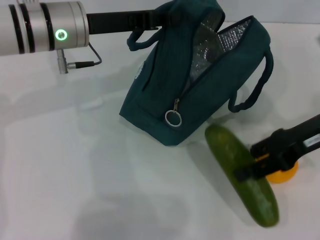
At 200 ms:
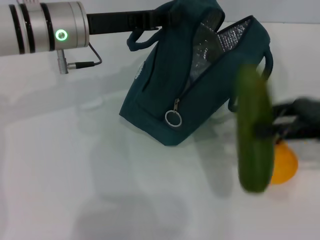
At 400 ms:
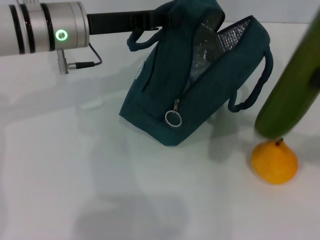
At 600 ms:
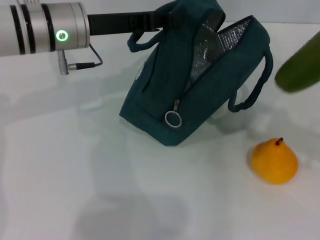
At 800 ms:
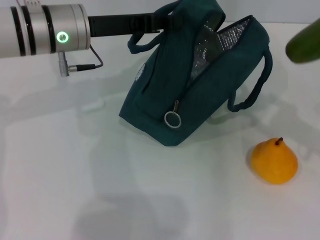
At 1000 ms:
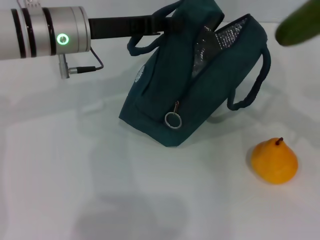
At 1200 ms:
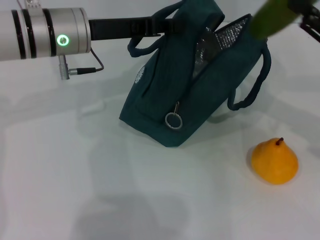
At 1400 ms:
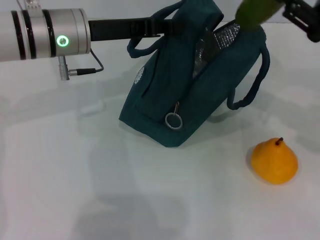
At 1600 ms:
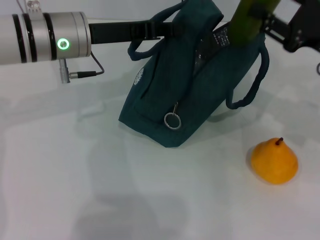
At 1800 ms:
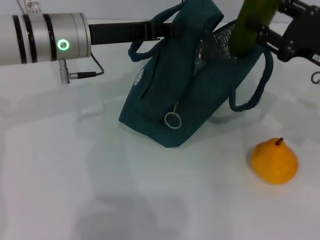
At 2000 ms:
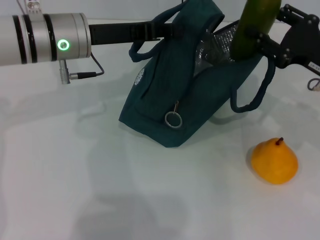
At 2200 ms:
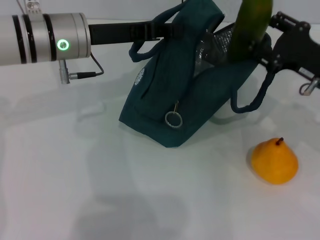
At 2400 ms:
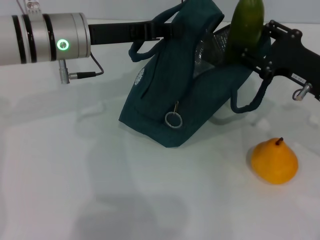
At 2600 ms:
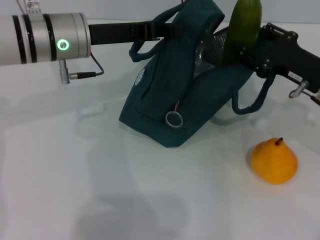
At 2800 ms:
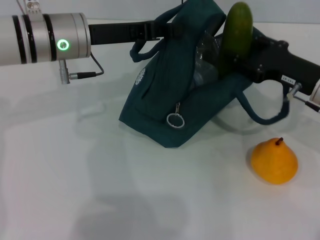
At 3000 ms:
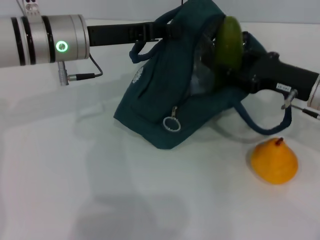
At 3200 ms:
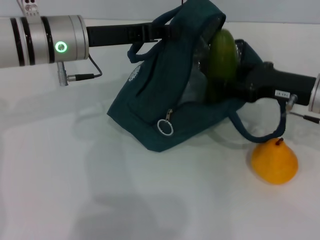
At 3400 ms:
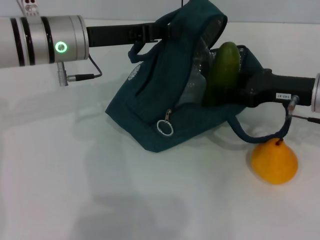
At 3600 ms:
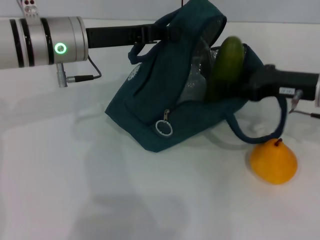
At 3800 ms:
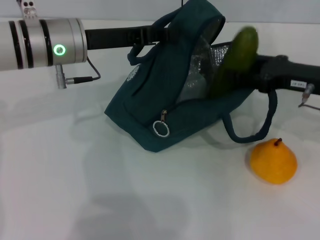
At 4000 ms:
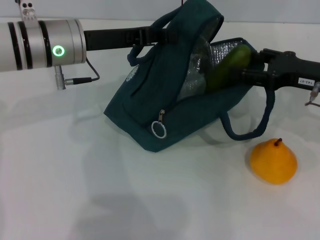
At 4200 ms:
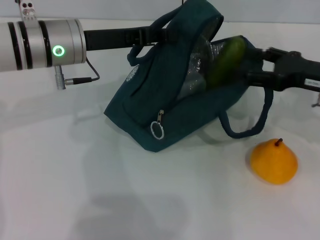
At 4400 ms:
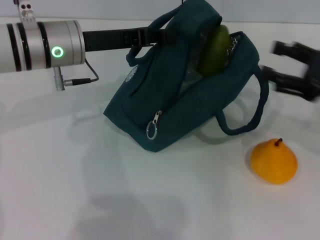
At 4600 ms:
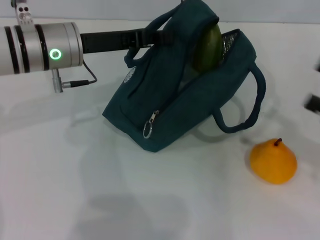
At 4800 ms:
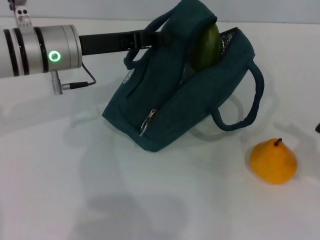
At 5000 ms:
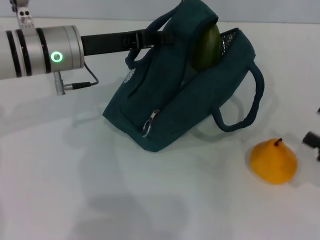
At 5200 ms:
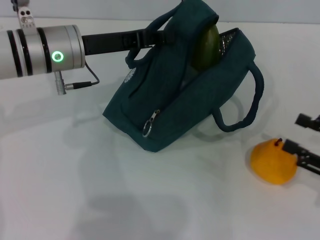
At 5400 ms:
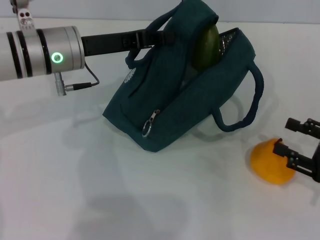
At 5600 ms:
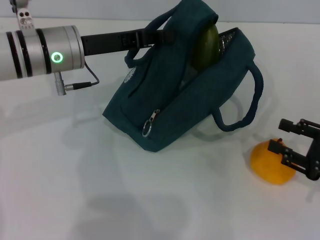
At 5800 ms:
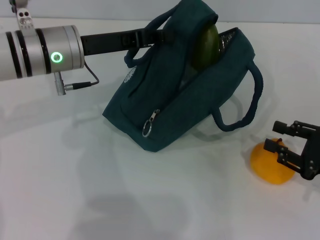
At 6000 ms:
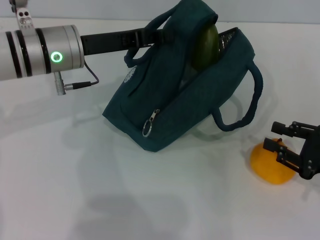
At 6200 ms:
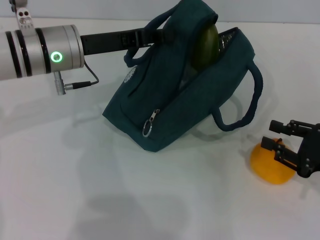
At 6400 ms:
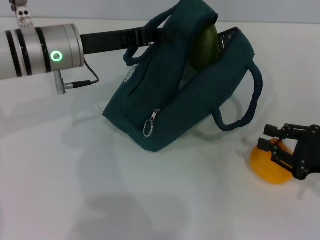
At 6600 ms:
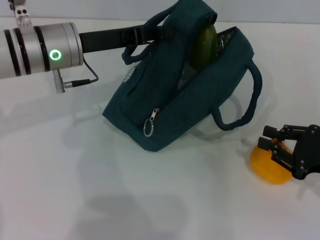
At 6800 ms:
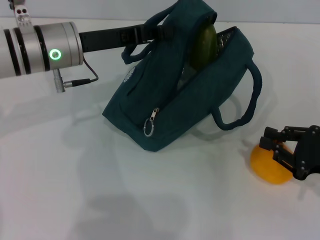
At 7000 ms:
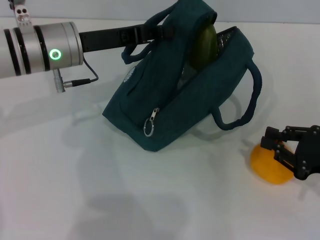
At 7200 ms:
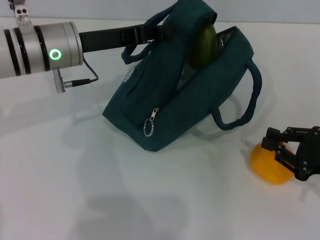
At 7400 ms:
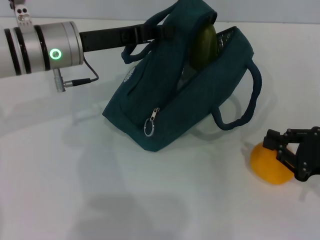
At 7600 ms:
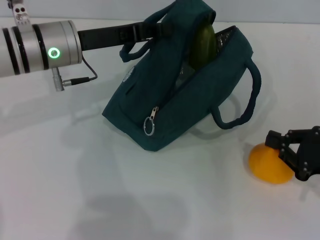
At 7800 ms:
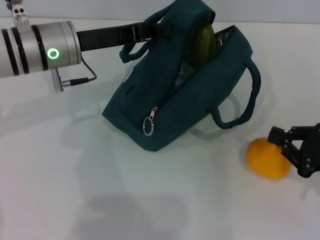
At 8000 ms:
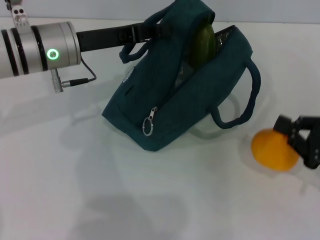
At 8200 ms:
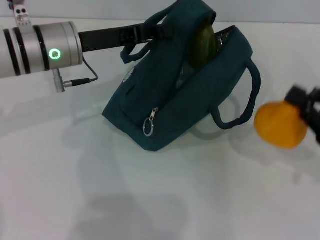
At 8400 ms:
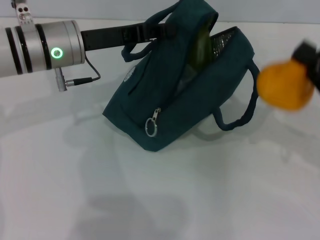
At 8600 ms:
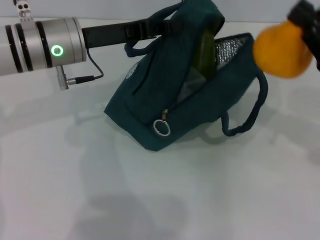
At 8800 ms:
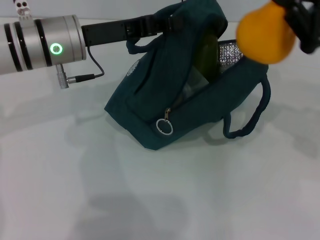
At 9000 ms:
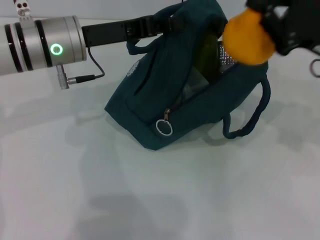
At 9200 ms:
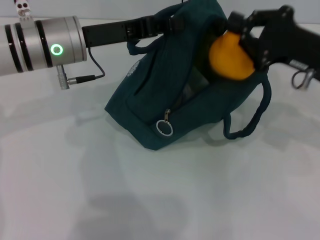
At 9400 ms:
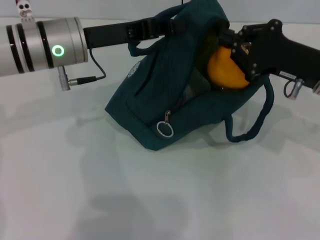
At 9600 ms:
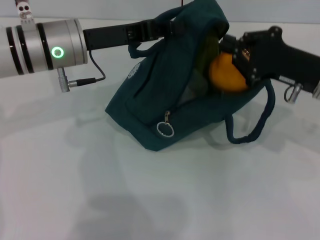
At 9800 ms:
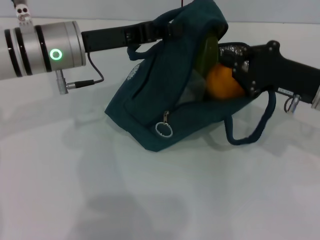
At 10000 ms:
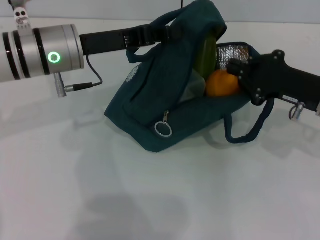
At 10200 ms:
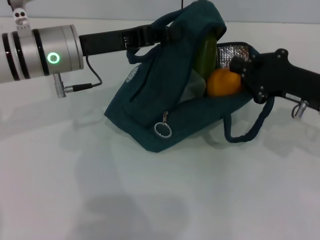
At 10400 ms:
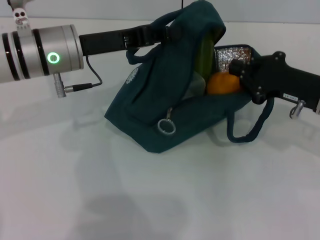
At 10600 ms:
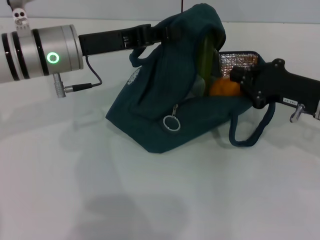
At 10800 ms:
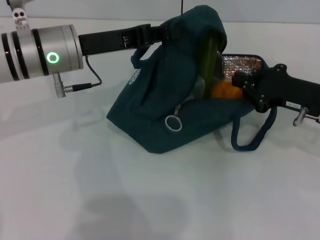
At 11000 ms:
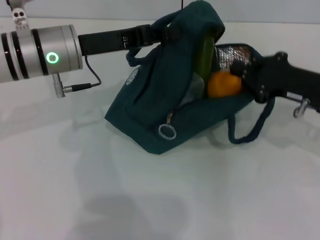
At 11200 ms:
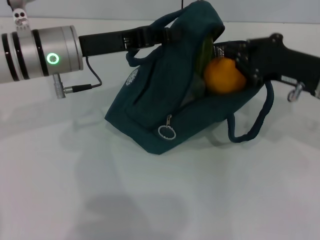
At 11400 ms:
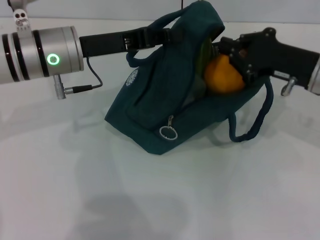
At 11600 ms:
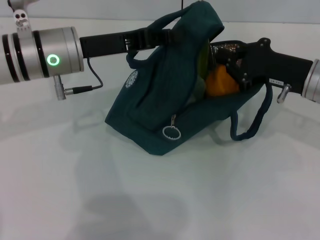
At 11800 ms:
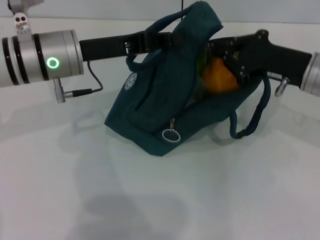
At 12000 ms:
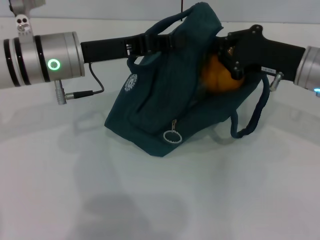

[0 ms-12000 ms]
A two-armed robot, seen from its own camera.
Step, 0 ms to 4600 ms: Put the cucumber into the lunch bag with your right hand.
Step, 4800 ms to 7200 ms: Grab the pear with your right hand.
1600 ms to 3000 ms: The right gripper shifts some 5 cm downward.
3000 ms to 4400 ms: The right gripper heads to the right, covering about 5 cm, and opens its fingers.
4400 ms to 6000 ms: The right gripper shifts approximately 10 cm downward and backward, and closes its fingers.
6000 ms to 7600 ms: The right gripper closes its fingers.
7600 ms to 9000 ms: The right gripper heads upward, forward and to the left, covering some 15 cm.
9000 ms to 10400 ms: The right gripper heads downward, covering approximately 5 cm.
10400 ms to 12000 ms: The right gripper ends up roughly 5 cm from where it was.

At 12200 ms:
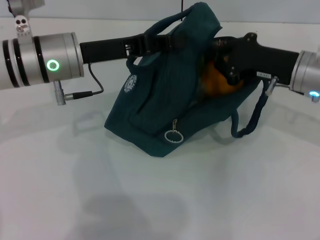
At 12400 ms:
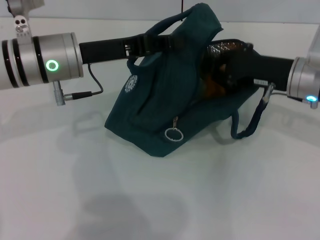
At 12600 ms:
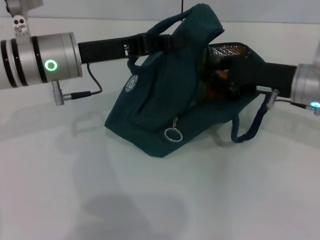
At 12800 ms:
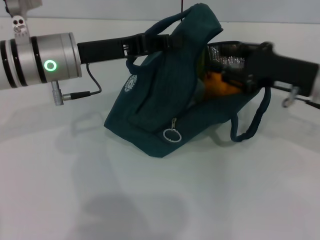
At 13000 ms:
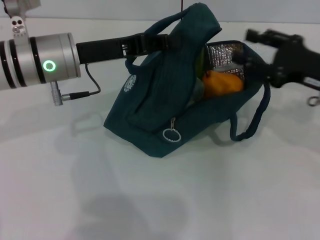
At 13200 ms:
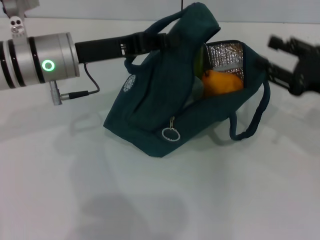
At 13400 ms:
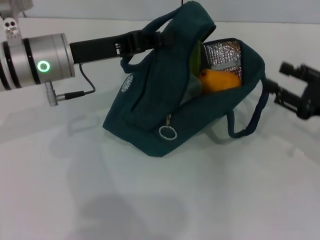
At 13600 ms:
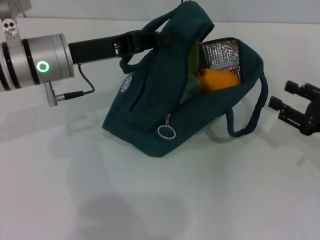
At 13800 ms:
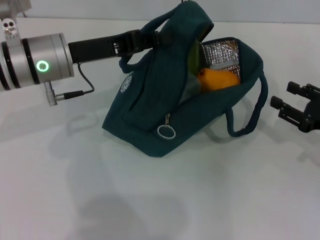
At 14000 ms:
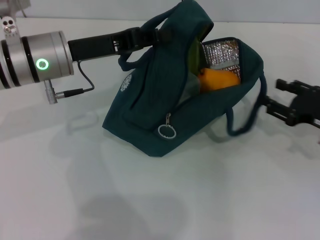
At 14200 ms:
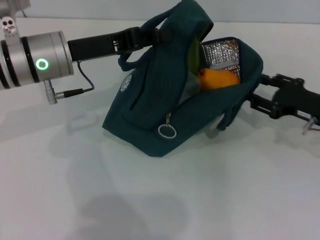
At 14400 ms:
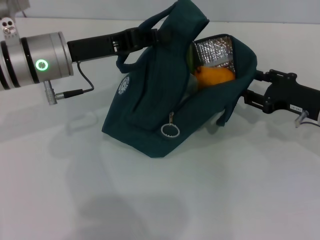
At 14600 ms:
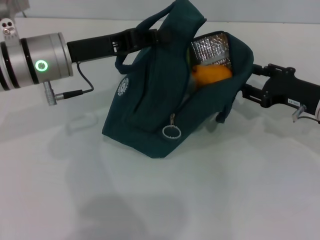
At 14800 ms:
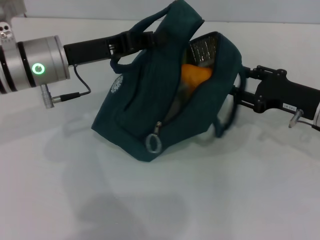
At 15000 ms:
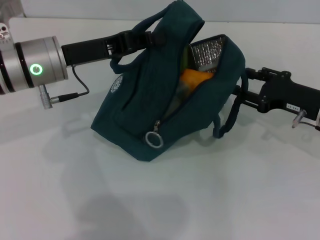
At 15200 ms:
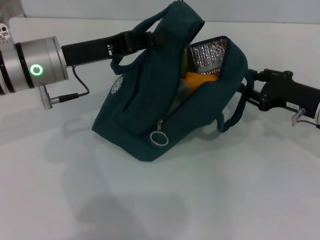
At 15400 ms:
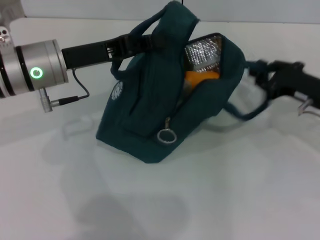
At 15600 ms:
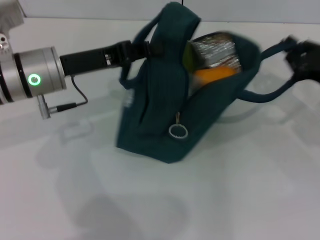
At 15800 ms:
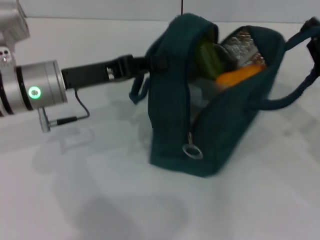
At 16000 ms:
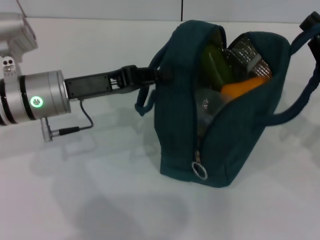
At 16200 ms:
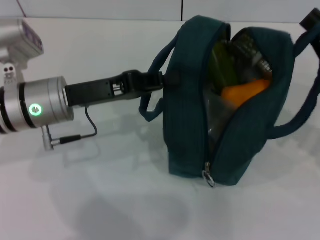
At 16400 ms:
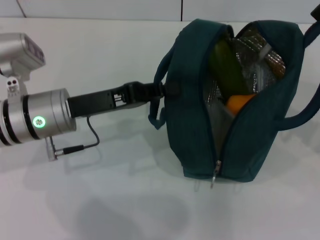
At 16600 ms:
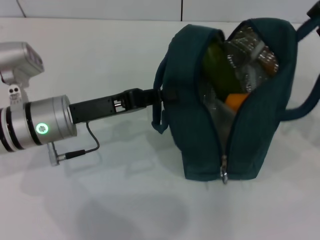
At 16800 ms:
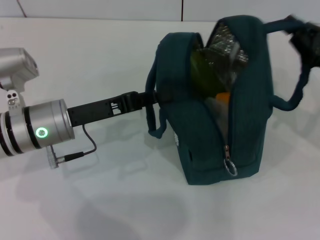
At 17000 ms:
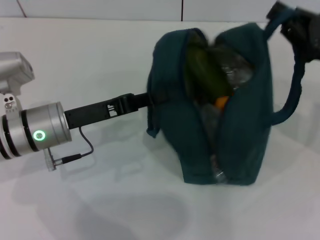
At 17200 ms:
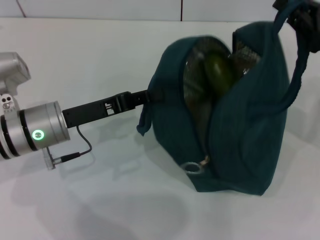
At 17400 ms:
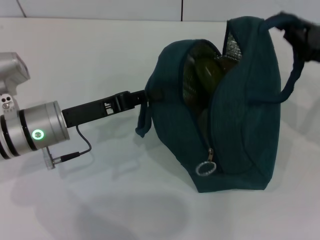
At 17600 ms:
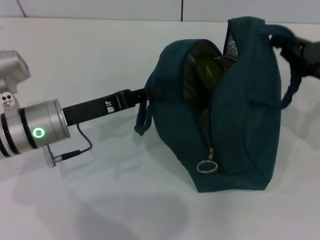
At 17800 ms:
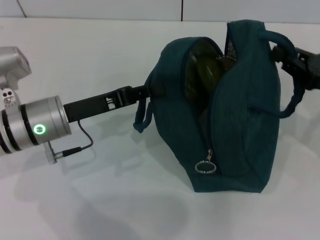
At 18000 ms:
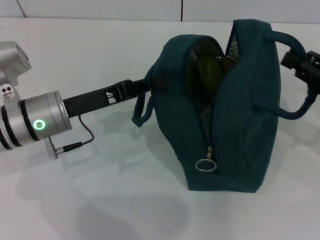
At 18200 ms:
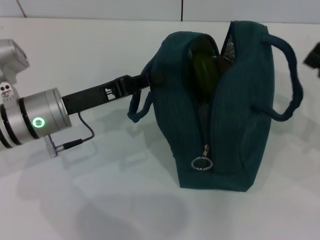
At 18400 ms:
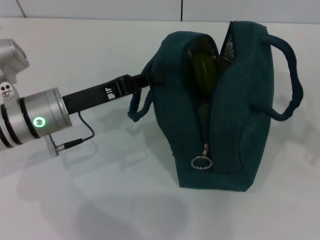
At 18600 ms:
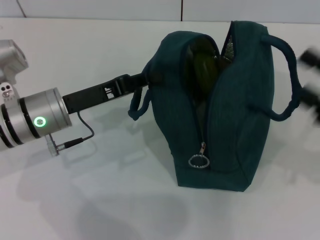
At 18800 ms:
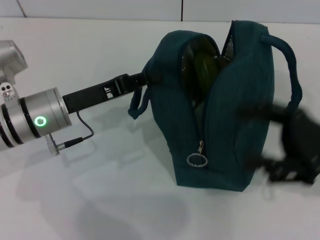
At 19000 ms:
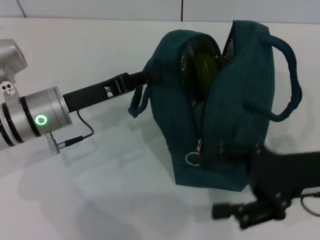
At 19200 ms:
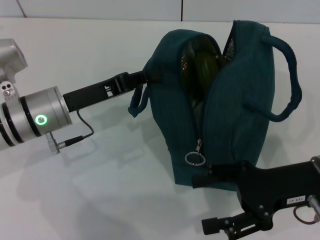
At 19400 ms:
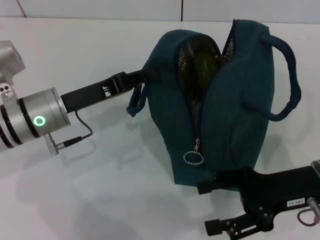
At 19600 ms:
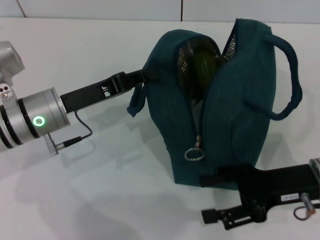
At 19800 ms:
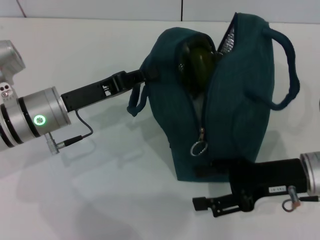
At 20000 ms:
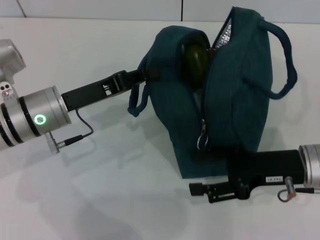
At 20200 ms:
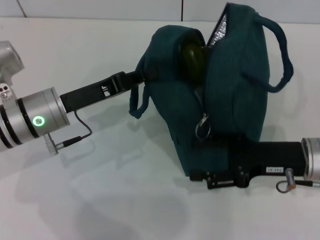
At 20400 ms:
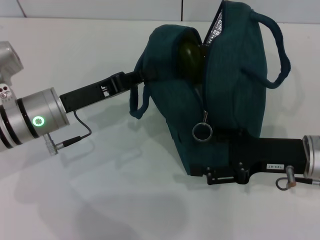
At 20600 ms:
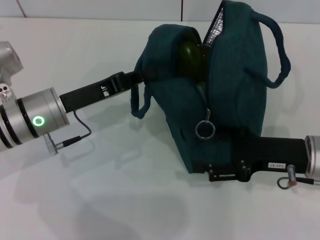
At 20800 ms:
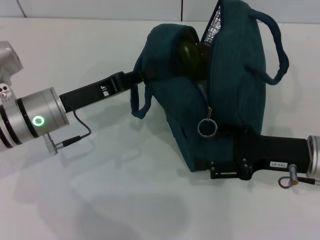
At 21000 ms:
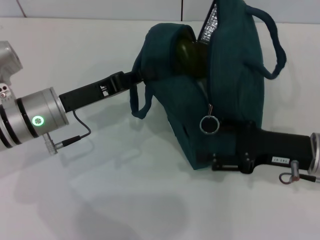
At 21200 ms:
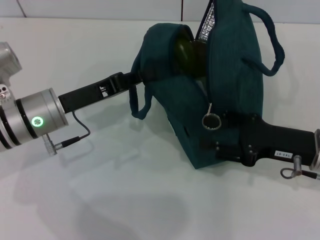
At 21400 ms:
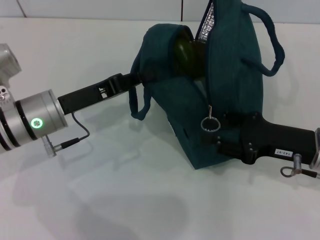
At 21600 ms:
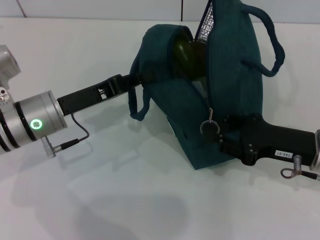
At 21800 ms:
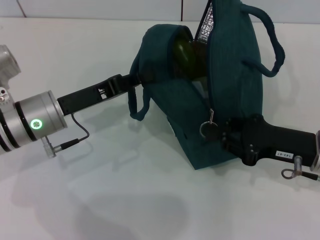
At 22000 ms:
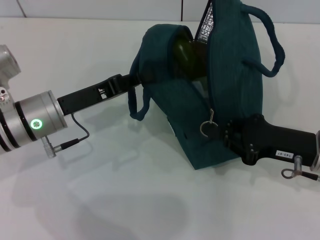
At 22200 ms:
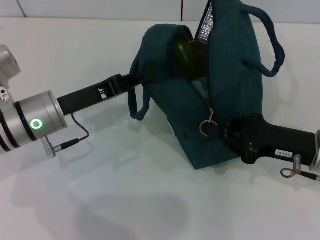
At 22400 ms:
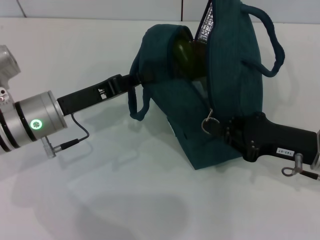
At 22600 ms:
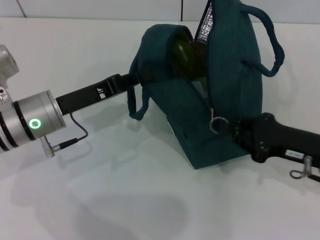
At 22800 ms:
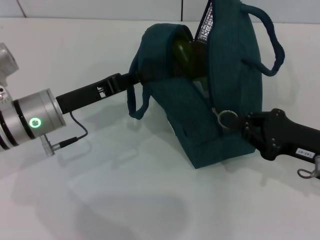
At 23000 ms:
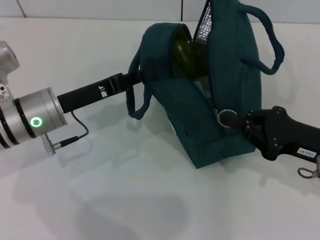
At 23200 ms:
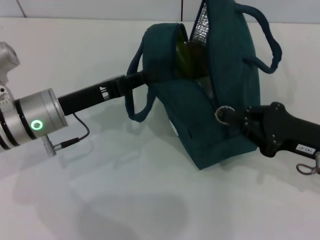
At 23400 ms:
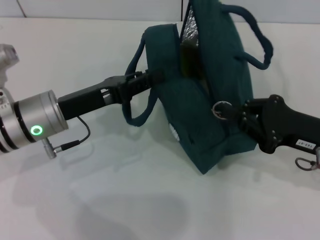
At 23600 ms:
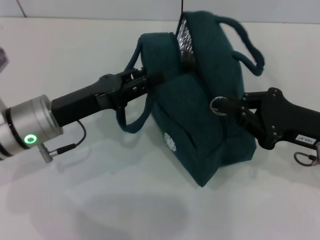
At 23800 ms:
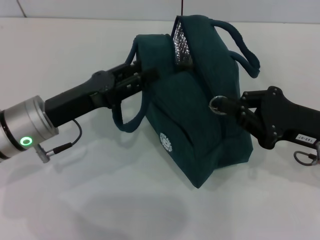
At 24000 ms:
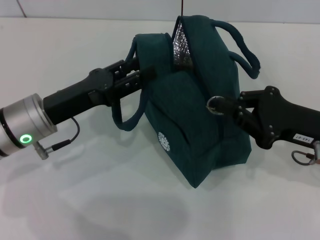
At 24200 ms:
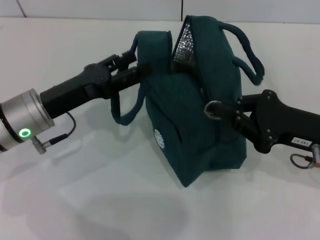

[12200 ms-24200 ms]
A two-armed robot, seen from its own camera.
Step, 13600 ms to 18000 ms: Hold the lunch bag with your right hand.
Step, 18200 ms to 24000 ms: Hold the lunch bag with your left hand.
12200 ms to 13800 ms: The right gripper heads to the right, backward and downward, covering approximately 15 cm, and opens its fingers.
13800 ms to 15200 ms: The right gripper travels to the left and forward by approximately 10 cm.
15200 ms to 16600 ms: The left gripper travels downward and backward by some 5 cm; the right gripper moves upward, roughly 5 cm, and closes up.
18200 ms to 19800 ms: The right gripper shifts about 10 cm to the left, and opens up.
21200 ms to 22600 ms: The right gripper closes its fingers.
22600 ms to 24200 ms: The left gripper opens up.
